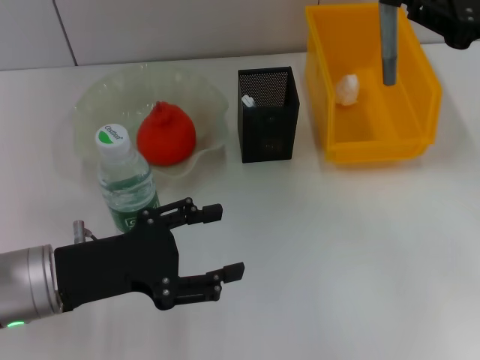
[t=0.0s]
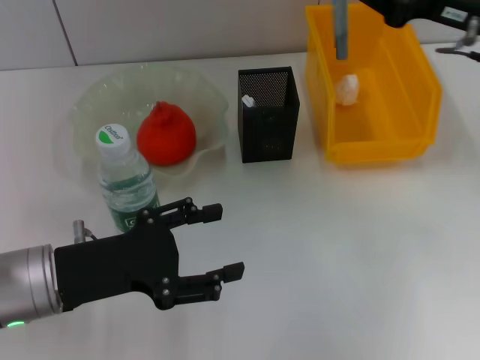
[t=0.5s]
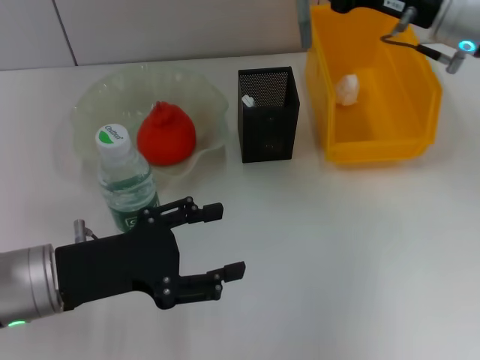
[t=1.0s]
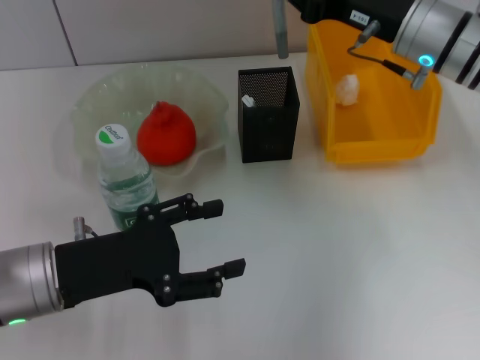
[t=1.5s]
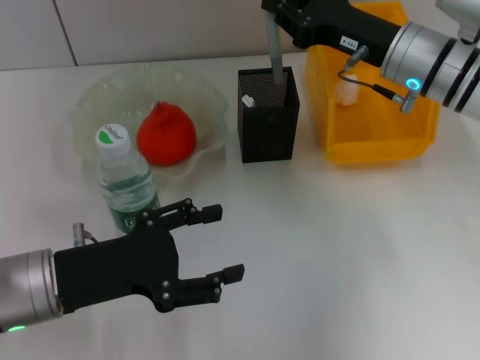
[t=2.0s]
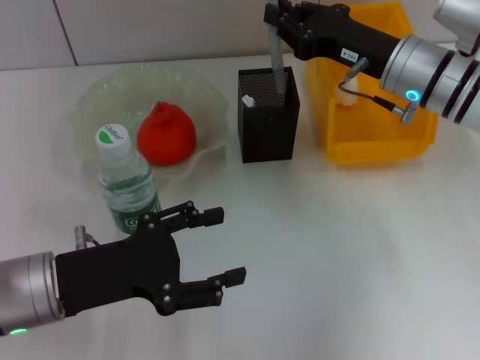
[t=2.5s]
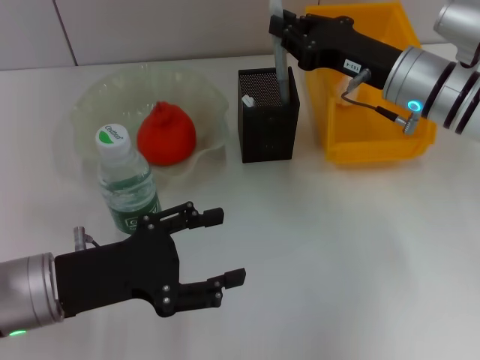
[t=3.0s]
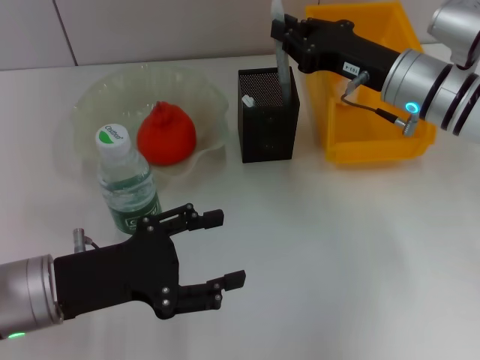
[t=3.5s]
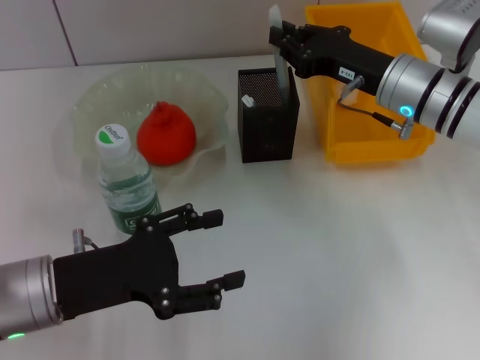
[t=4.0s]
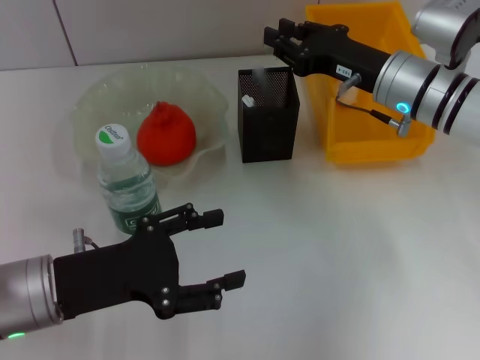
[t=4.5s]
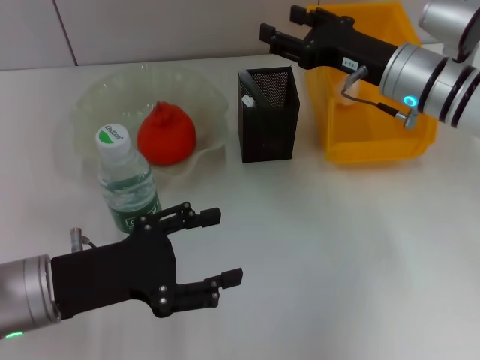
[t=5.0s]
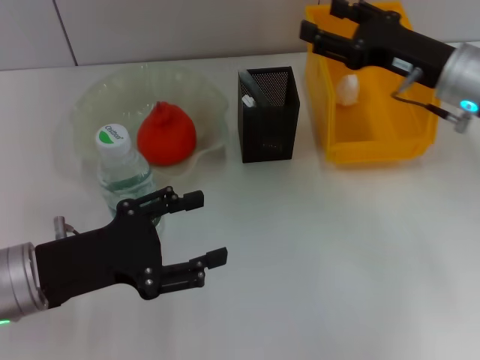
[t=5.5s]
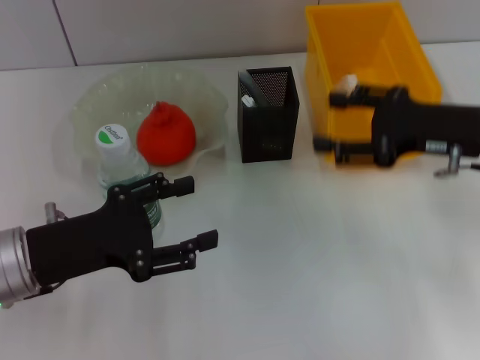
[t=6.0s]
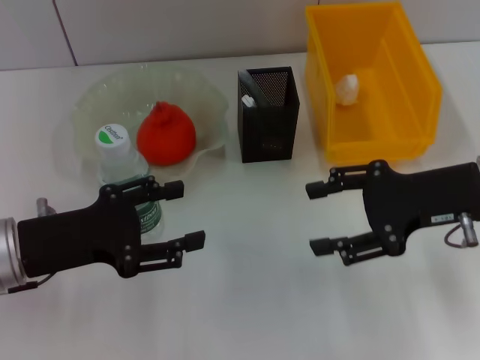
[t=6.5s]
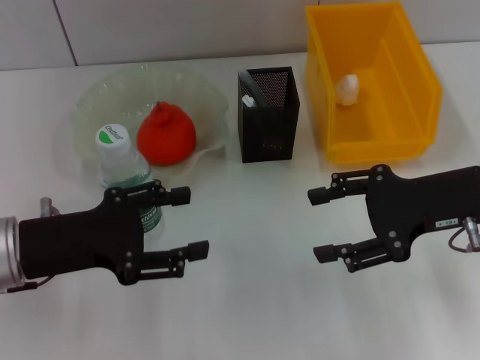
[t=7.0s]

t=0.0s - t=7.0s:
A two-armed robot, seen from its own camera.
Step, t=0.0s - t=4.5s: Place the gray glue into the pen holder with the right hand.
t=0.0s - t=2.0s: The right gripper heads to the left, downward and forward, covering approximately 15 cm.
t=2.0s - t=3.5s: The grippers make only small movements.
t=3.5s - t=5.0s: The right gripper opens up.
t=5.0s - t=7.0s: The right gripper is displaced backward by approximately 10 cm.
